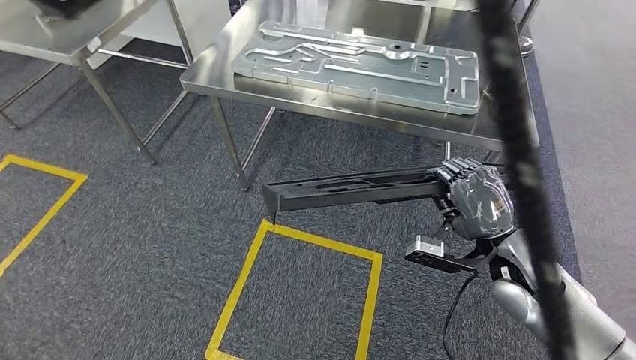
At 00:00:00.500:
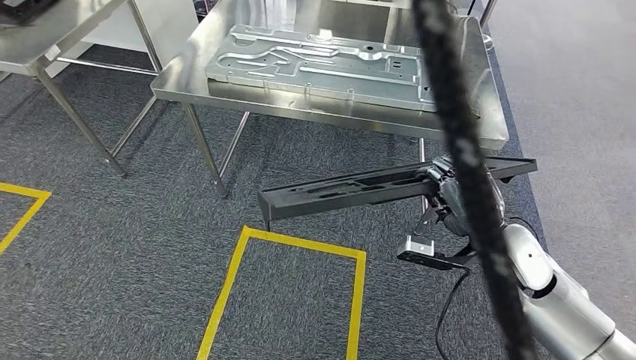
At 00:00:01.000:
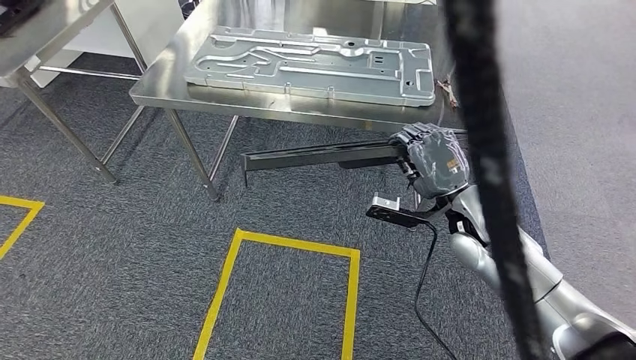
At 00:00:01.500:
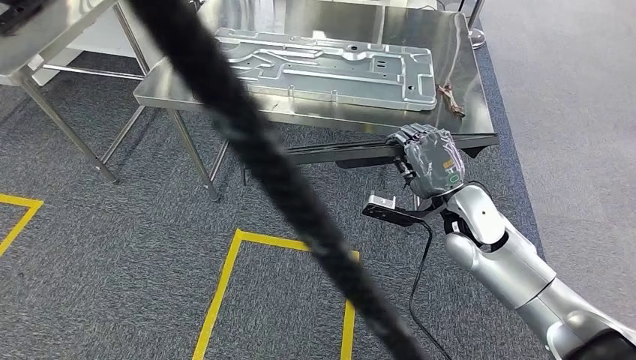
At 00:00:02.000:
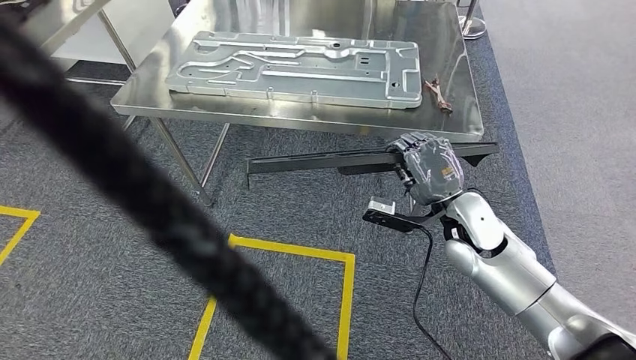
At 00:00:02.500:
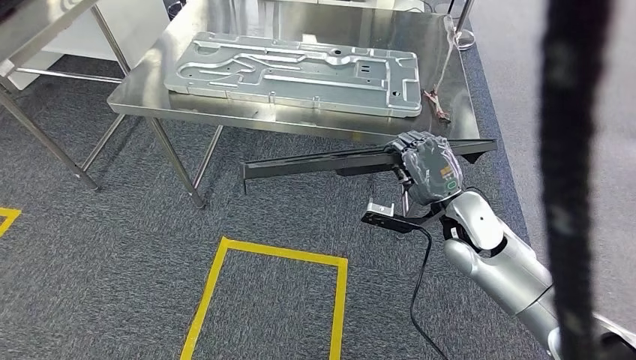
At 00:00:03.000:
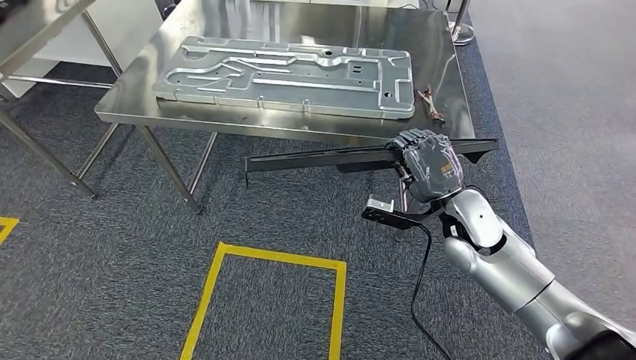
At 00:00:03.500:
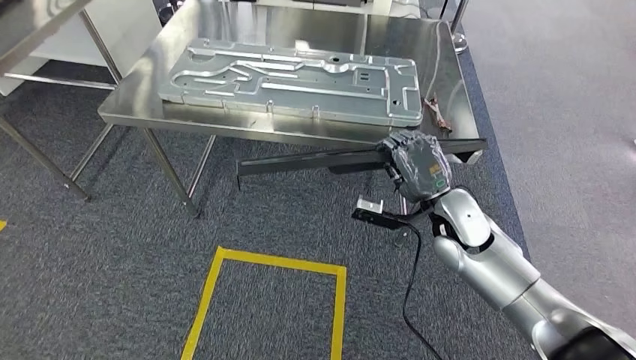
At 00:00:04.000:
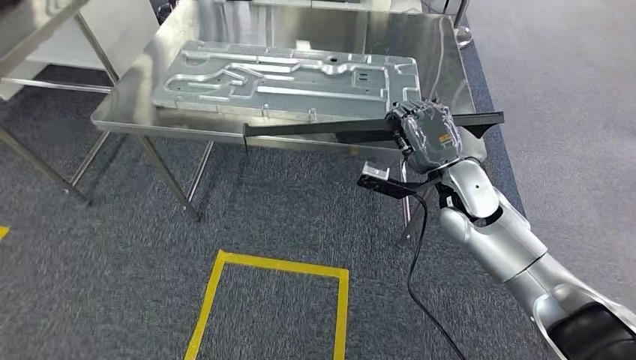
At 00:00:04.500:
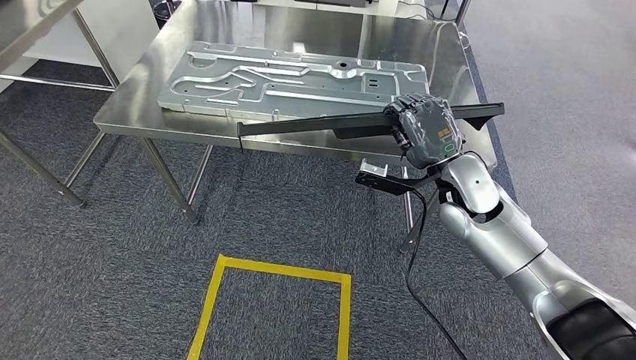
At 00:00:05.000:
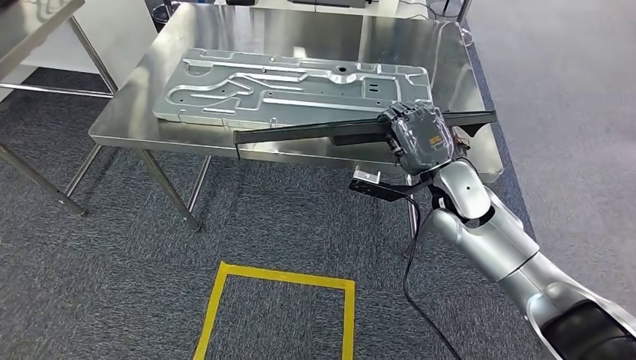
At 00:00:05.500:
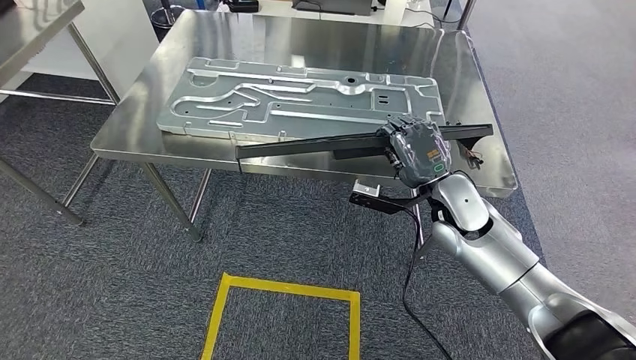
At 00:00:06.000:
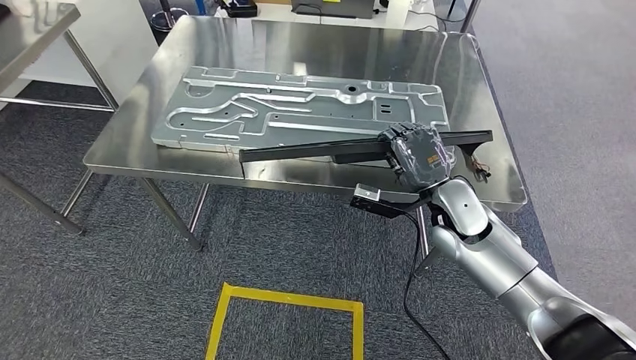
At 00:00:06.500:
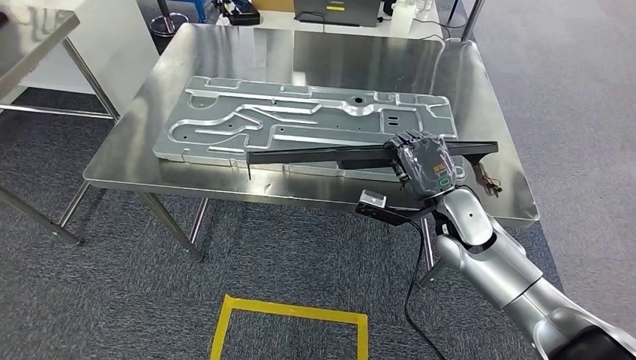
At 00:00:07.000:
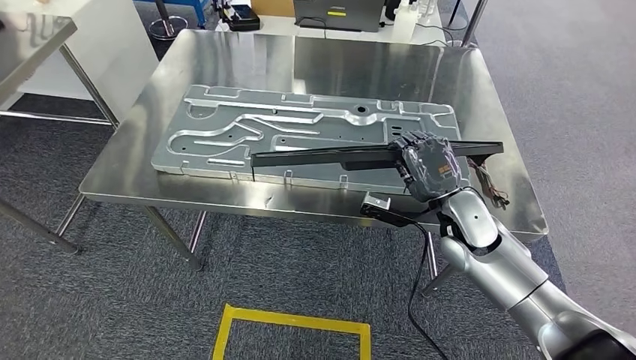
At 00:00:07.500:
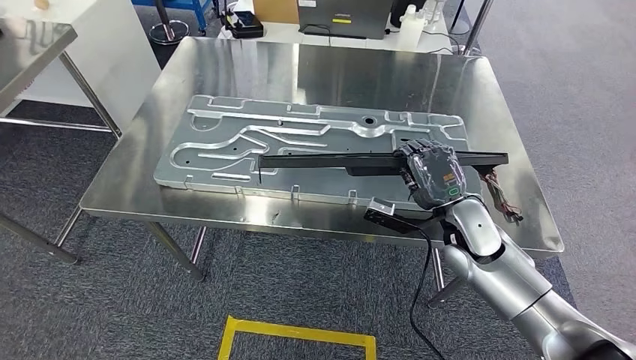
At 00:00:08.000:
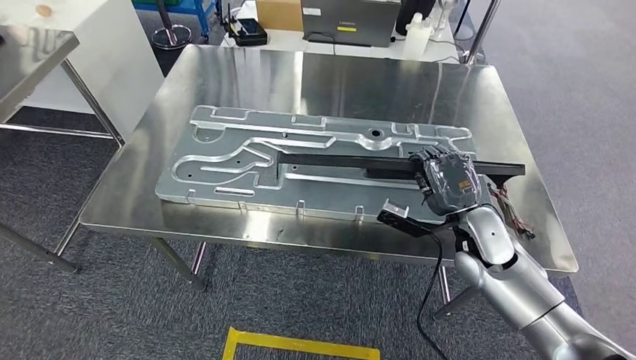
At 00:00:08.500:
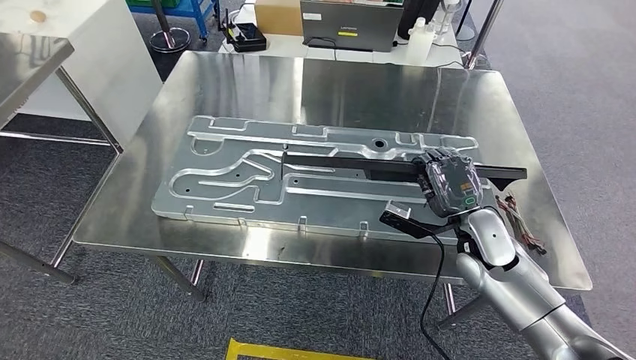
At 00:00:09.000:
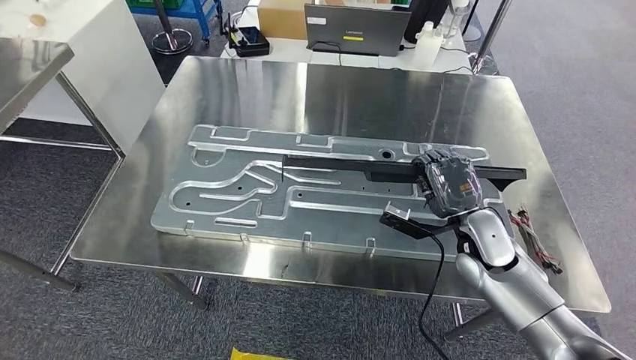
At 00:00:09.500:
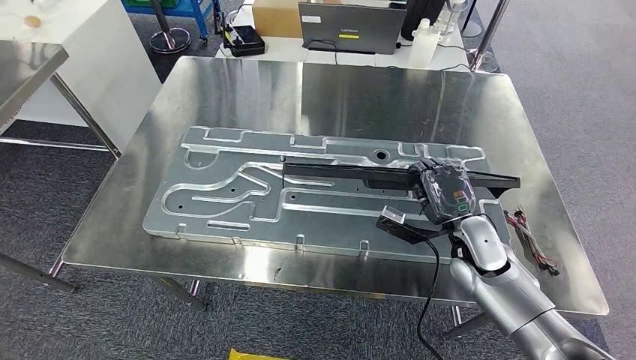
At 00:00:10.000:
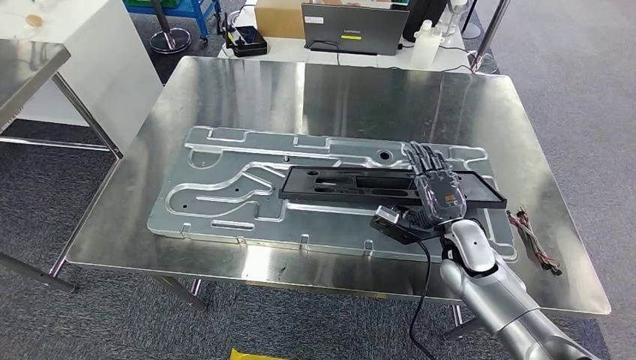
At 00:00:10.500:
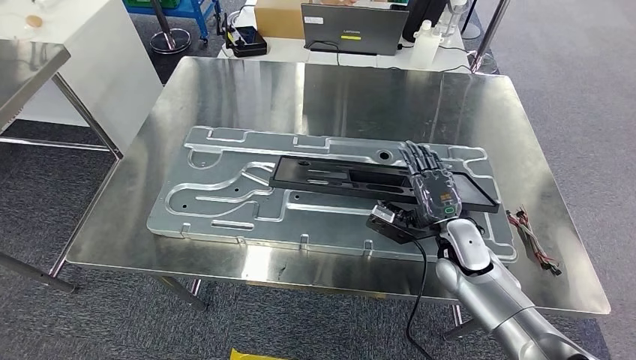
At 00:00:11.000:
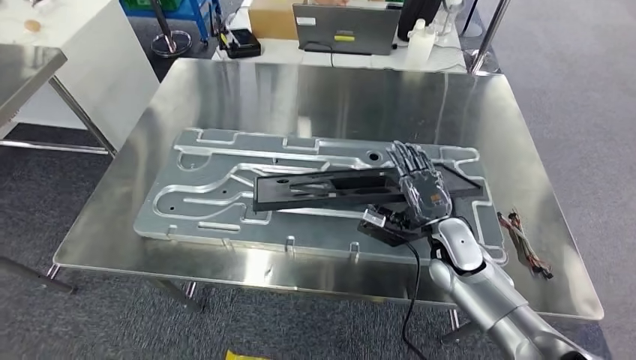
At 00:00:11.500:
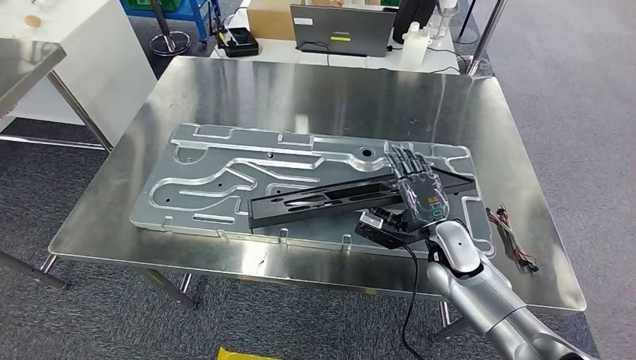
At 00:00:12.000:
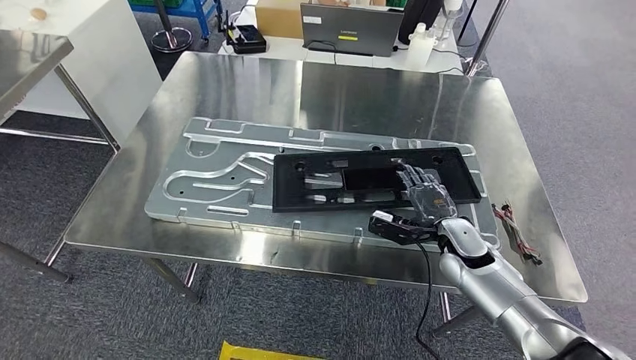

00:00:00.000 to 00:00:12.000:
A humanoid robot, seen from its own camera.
Step, 00:00:00.000 to 00:00:03.500: Move the large material to the workbench.

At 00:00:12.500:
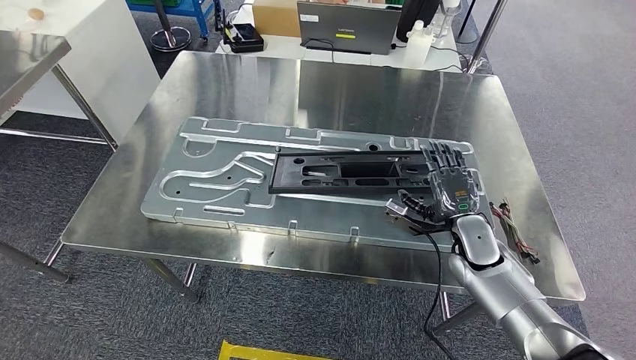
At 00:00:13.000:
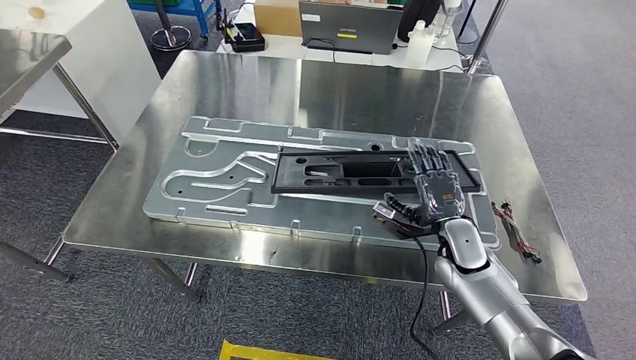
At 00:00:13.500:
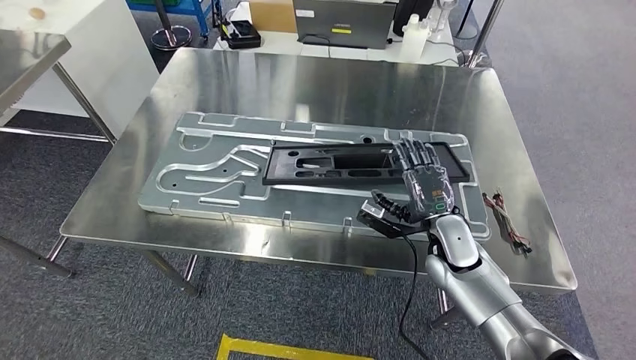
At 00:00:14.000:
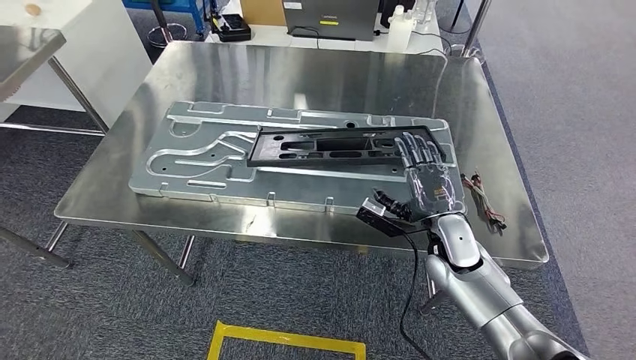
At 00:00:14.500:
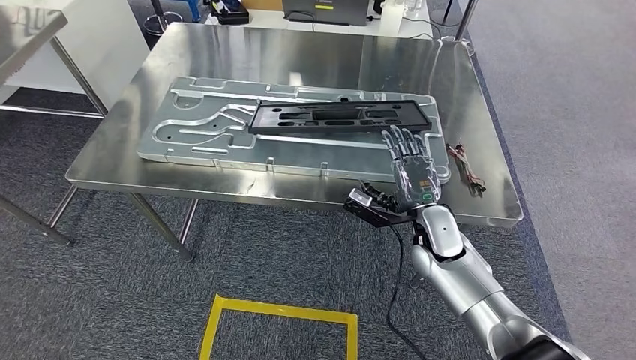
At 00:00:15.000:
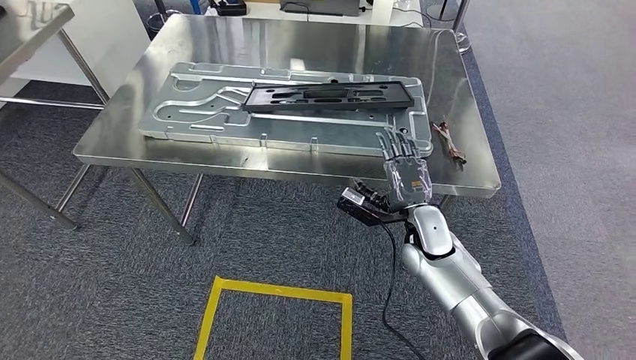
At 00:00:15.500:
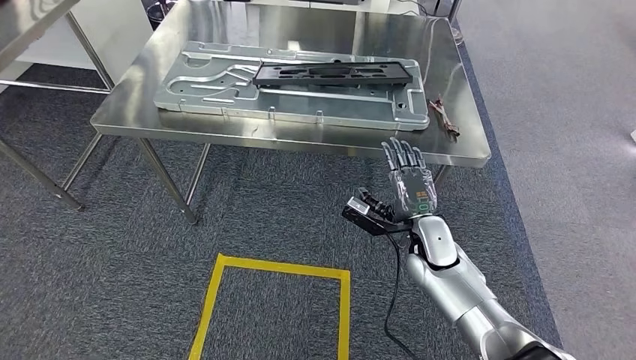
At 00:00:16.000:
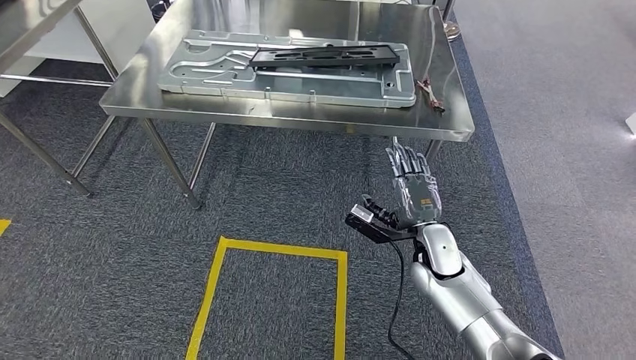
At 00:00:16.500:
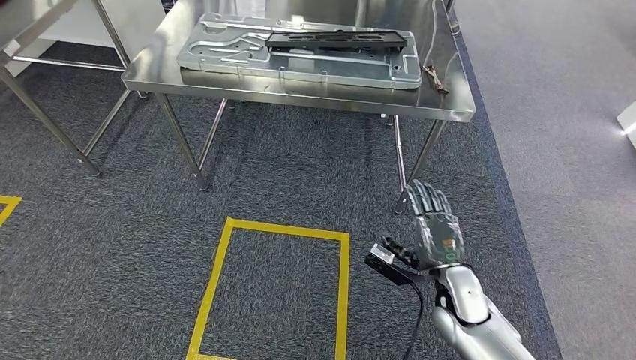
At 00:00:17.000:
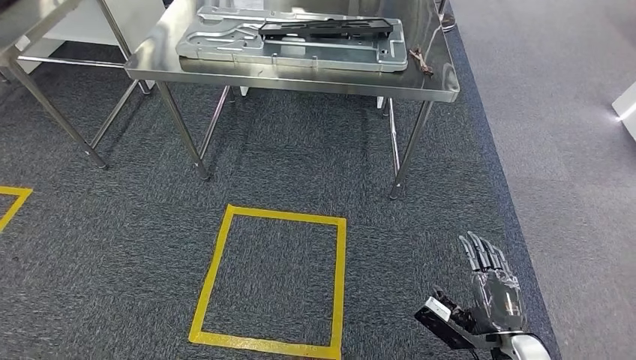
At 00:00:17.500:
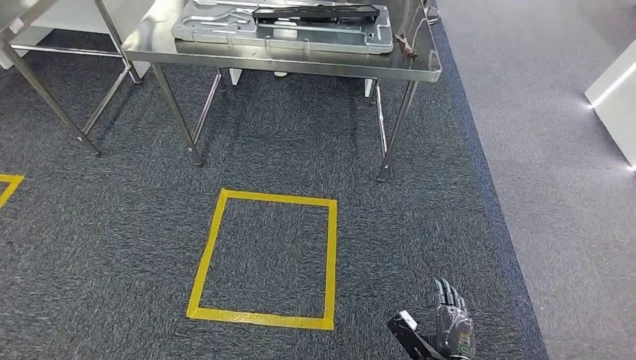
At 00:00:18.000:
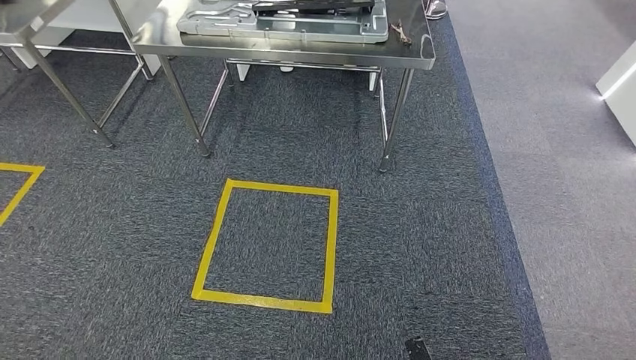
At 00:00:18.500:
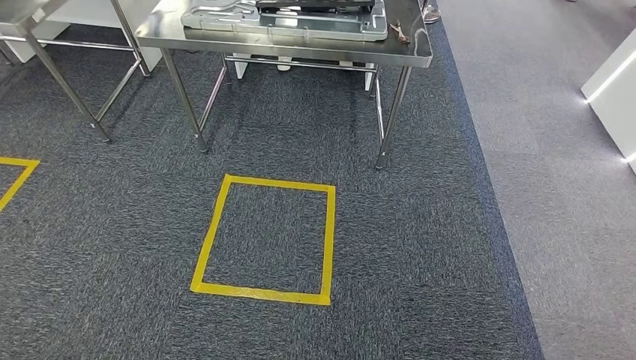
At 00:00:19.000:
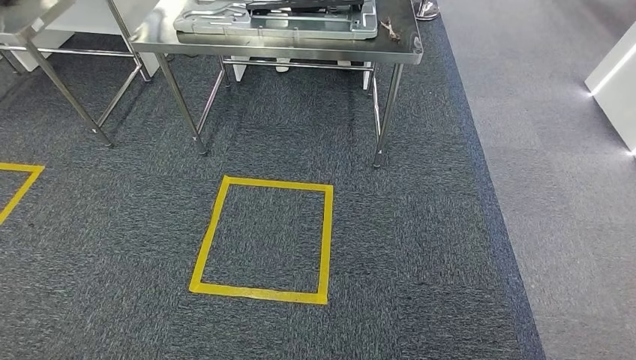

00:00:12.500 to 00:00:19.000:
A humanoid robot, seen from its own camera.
Step, 00:00:14.500 to 00:00:19.000: Return to the initial position at the shelf.
